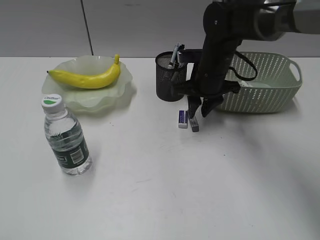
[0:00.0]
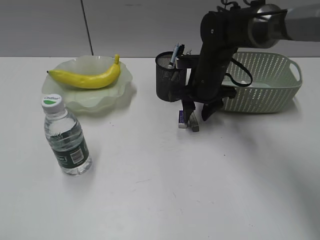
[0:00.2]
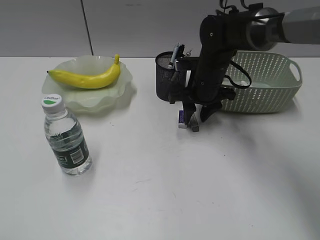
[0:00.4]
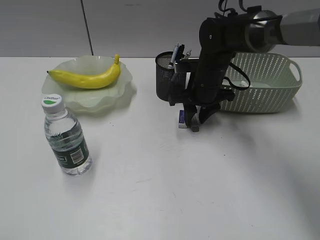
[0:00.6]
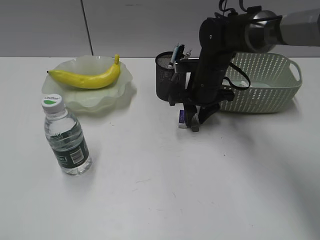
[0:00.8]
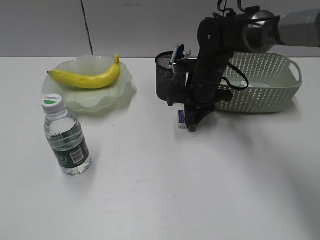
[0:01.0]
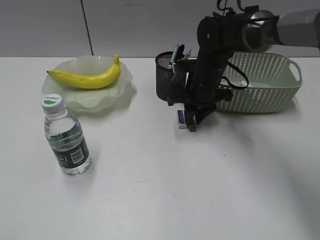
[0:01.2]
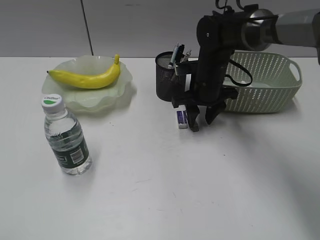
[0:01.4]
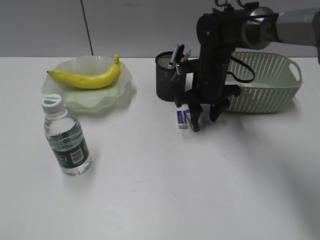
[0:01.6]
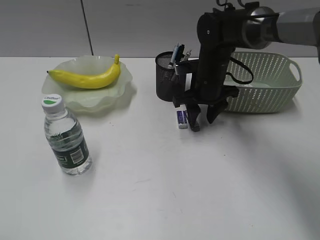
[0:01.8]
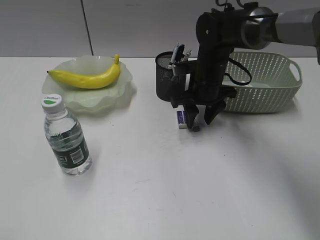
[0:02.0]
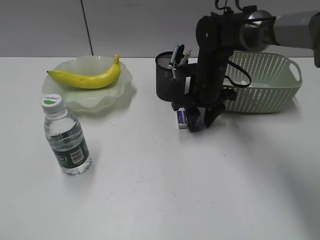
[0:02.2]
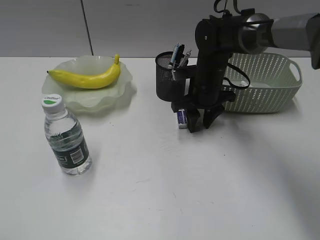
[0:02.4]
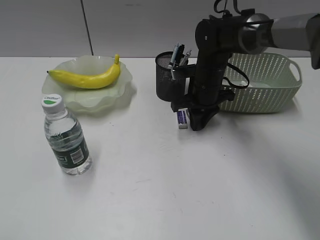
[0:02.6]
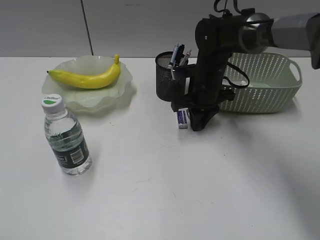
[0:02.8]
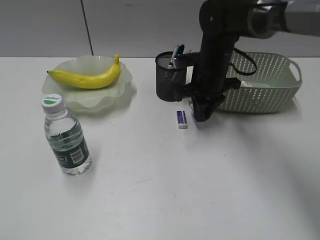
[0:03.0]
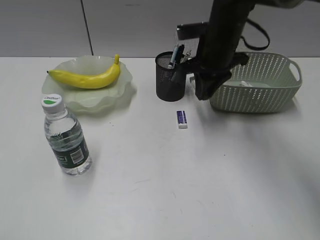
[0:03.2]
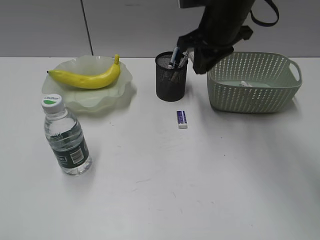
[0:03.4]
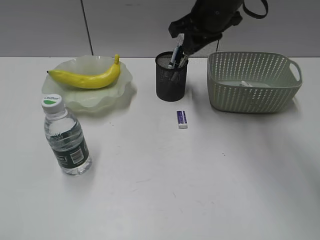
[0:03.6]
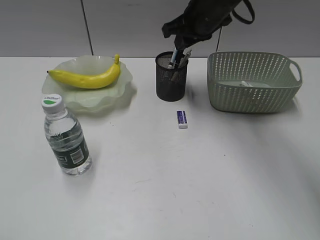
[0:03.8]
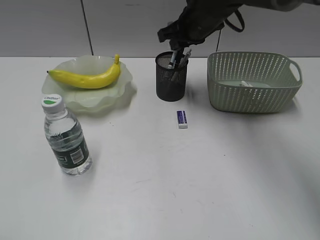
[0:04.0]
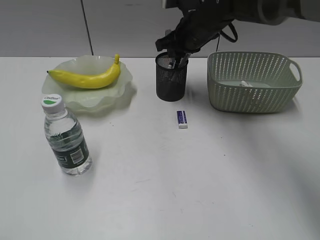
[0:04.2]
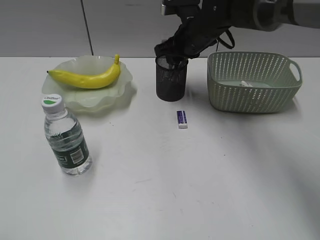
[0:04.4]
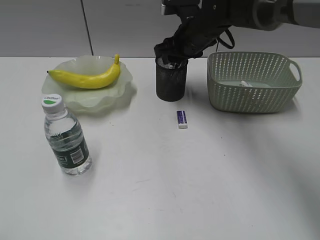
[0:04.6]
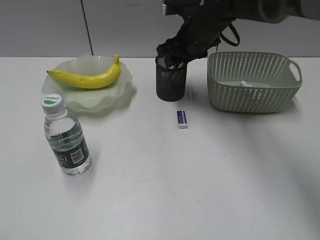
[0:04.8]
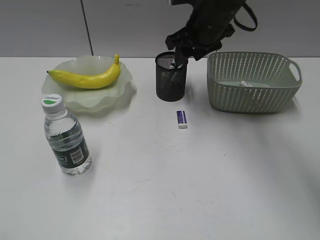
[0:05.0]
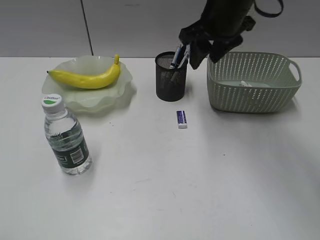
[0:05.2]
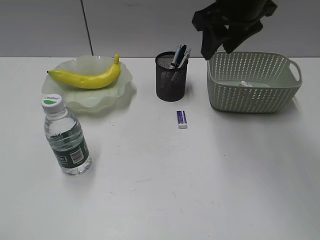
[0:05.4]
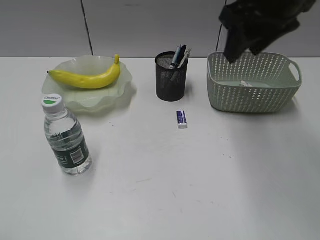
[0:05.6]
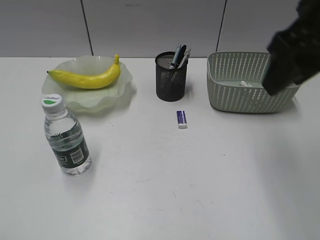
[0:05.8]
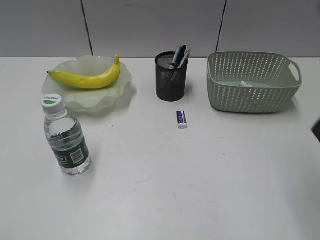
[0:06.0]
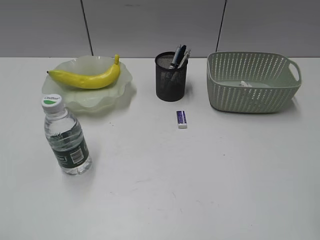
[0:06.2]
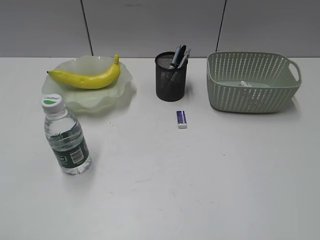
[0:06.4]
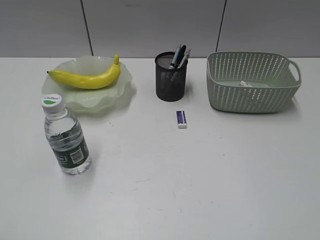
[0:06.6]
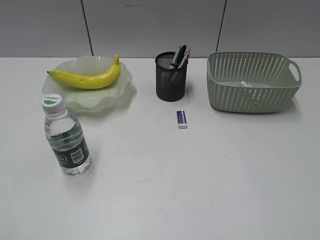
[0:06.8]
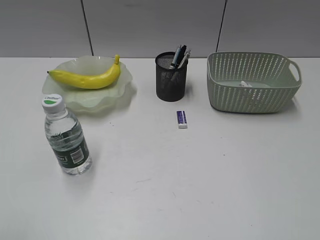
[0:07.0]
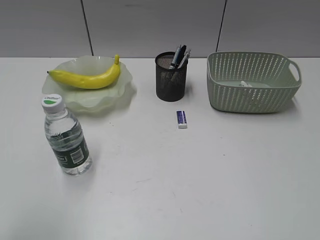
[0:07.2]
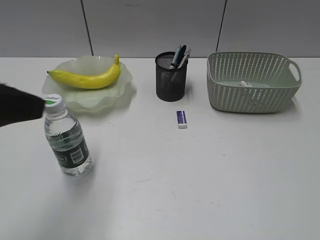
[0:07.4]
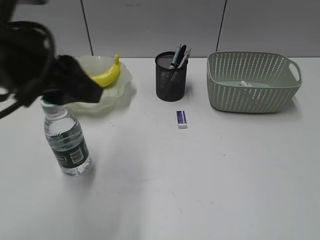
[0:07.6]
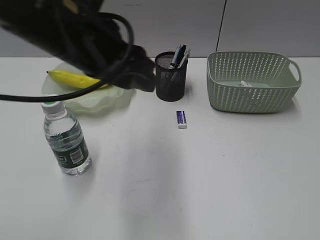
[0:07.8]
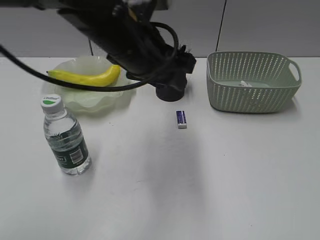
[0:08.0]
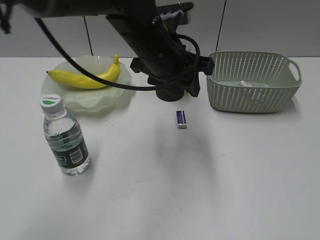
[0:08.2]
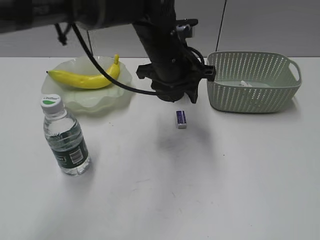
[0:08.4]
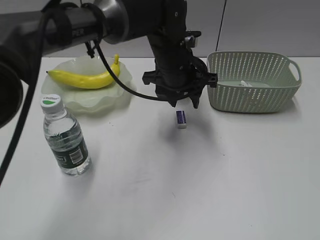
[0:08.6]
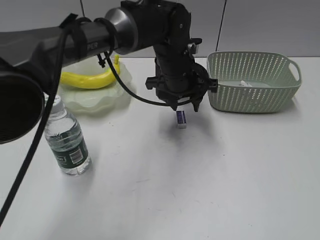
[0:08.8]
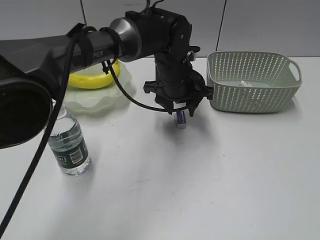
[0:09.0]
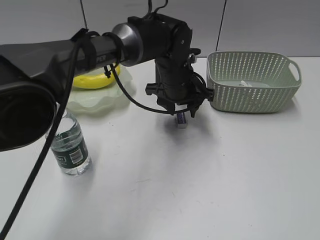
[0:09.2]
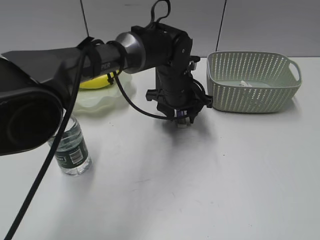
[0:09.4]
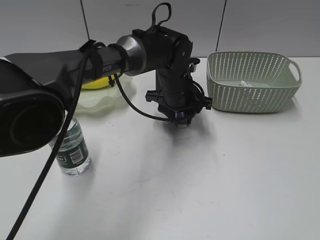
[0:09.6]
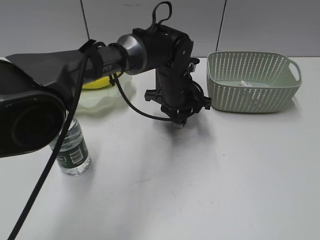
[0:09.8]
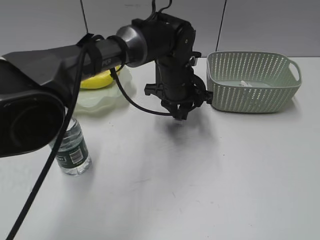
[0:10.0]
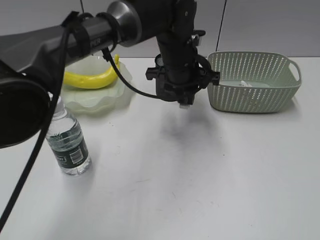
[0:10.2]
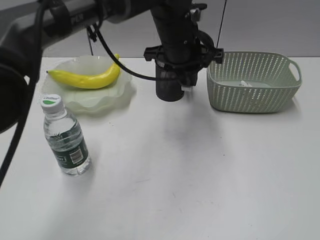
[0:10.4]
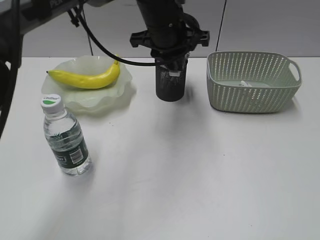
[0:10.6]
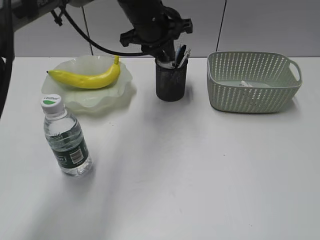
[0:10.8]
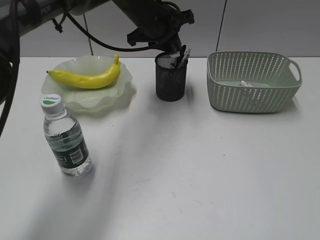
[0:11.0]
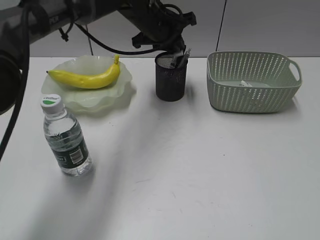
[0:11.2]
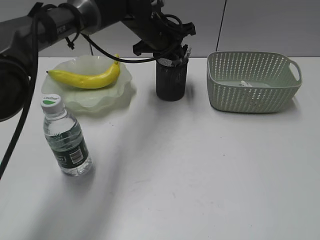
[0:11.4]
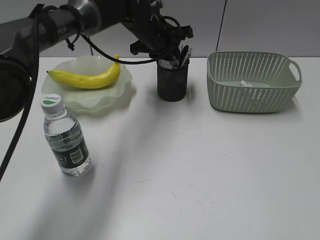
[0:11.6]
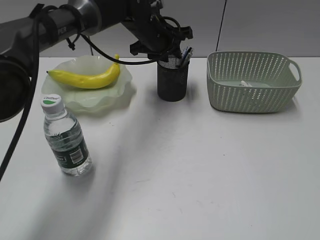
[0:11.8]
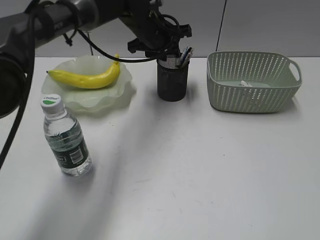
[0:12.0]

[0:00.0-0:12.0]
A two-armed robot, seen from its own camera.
Step, 0:00.0 to 0:02.6: Grasp the eraser with right gripper.
Step, 0:02.8 to 0:04.6: Place the eraser in pen holder with right gripper.
Step, 0:04.8 to 0:09.6: Grasp the eraser with left gripper.
Step, 0:09.8 to 0:11.8: Place the eraser in pen holder with left gripper.
0:00.0 to 0:01.6: The right gripper opens up.
0:01.6 to 0:03.0: The right gripper closes up.
0:03.0 to 0:04.4: The right gripper is displaced upward by approximately 5 cm.
0:04.4 to 0:06.0: The right gripper goes approximately 35 cm backward, upward and to the right, and opens its fingers.
0:06.0 to 0:07.6: The right gripper travels backward and to the right by some 25 cm. The left gripper travels forward and to the right by about 25 cm.
0:07.6 to 0:09.0: The left gripper heads to the right, forward and downward, covering about 35 cm.
0:09.0 to 0:10.4: The left gripper heads upward, covering roughly 5 cm, and closes its fingers.
0:10.4 to 0:12.0: The left gripper shifts about 10 cm forward and to the left.

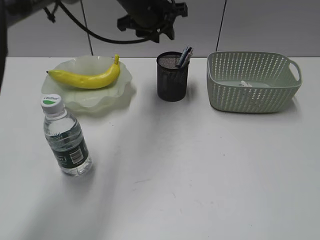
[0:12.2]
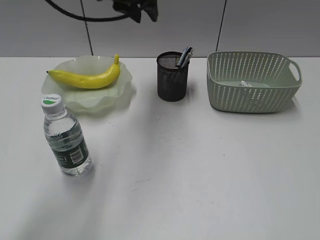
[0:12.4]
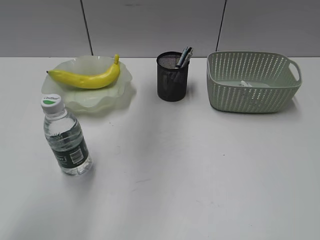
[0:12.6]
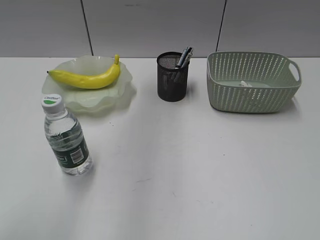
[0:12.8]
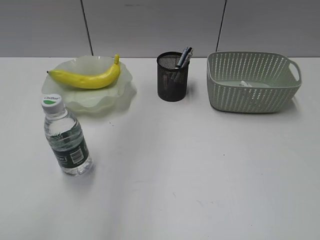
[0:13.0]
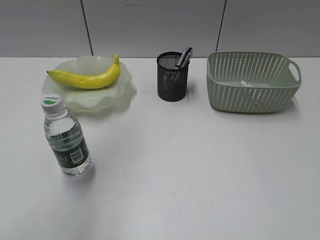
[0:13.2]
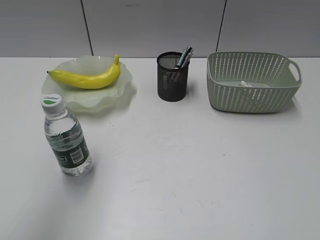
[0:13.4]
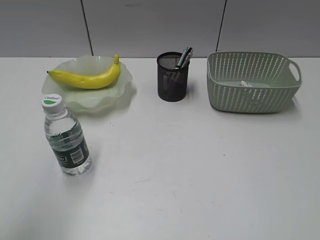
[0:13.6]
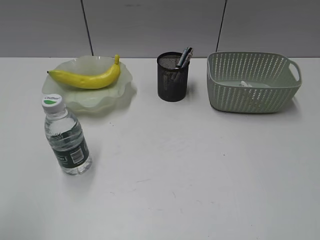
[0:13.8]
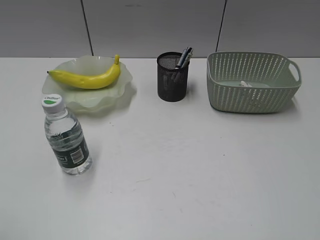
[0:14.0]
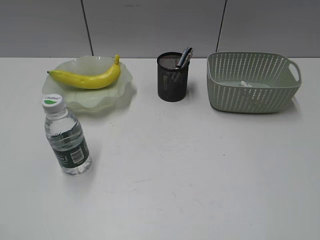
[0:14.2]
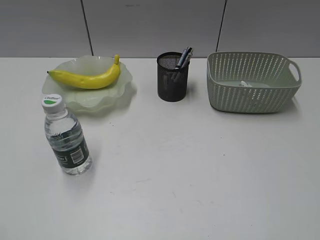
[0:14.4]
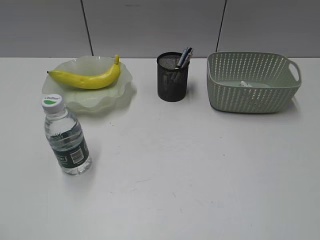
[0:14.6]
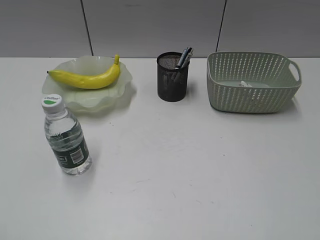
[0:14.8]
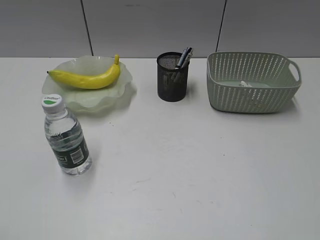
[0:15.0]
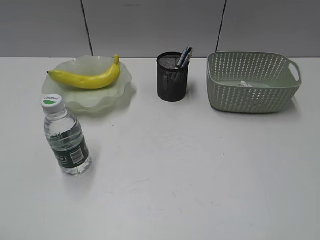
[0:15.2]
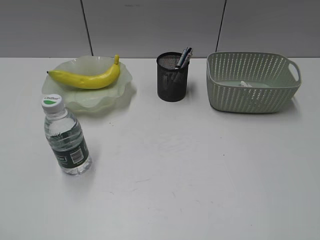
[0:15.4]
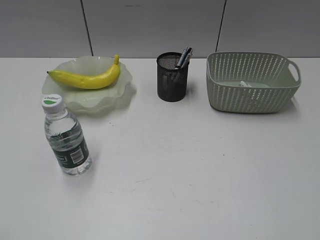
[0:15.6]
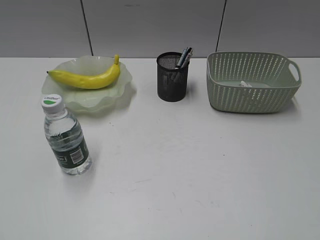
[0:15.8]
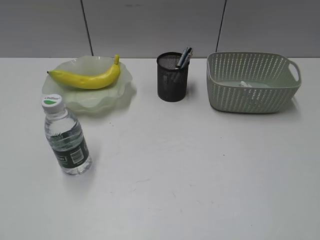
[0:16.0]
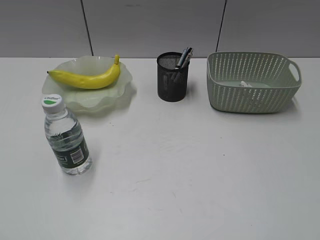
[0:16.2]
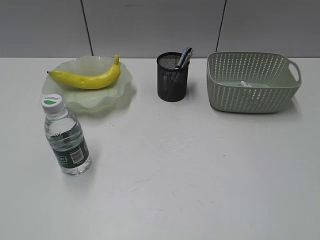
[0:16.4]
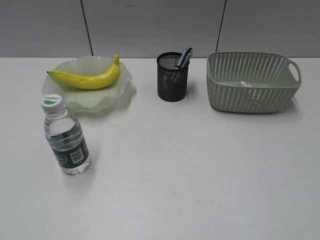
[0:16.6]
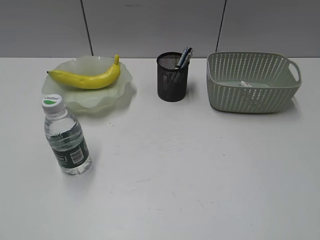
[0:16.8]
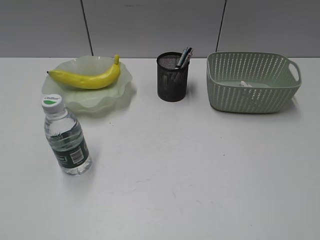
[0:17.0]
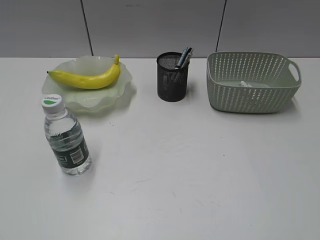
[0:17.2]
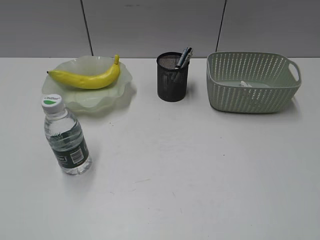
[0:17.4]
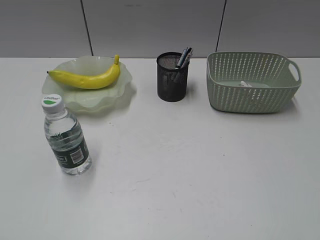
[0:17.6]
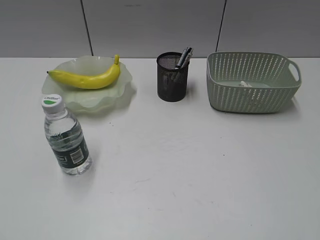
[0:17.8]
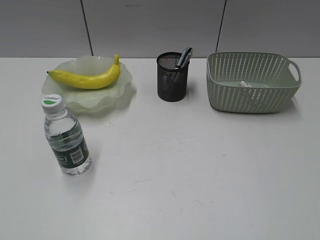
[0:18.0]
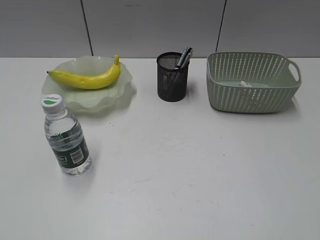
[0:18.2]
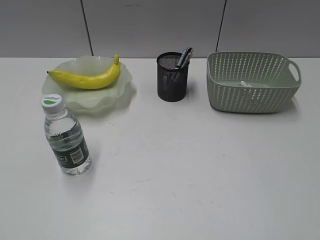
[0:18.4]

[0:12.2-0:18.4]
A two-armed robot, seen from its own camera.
0:12.2 to 0:13.8: The left gripper goes roughly 50 cm backward and to the left.
0:16.8 to 0:18.4: Both grippers stay about where they are.
